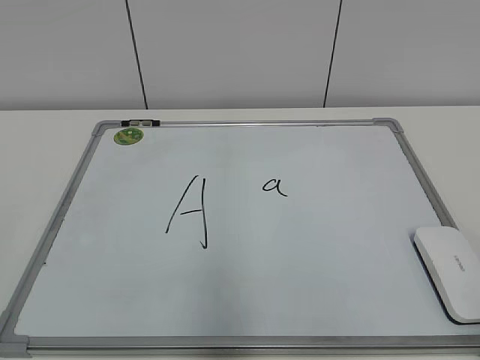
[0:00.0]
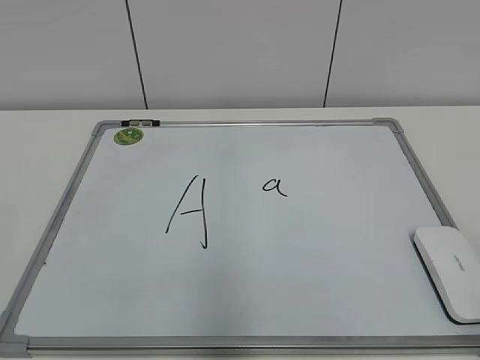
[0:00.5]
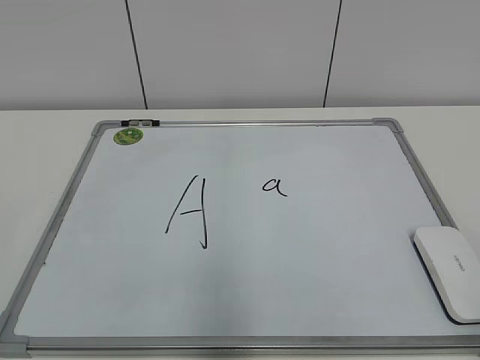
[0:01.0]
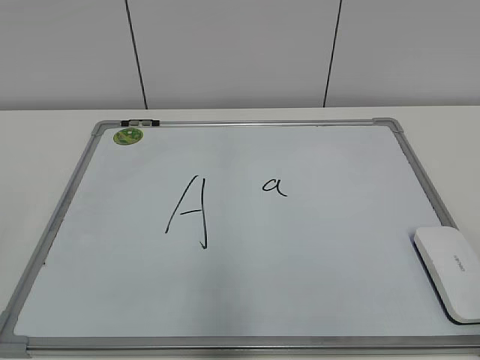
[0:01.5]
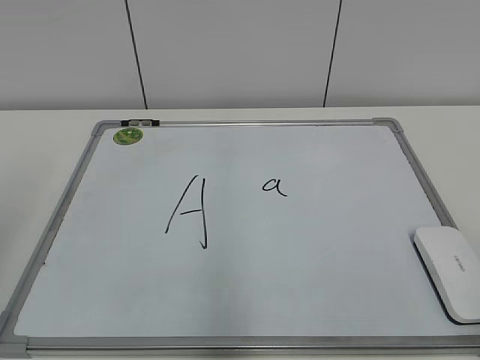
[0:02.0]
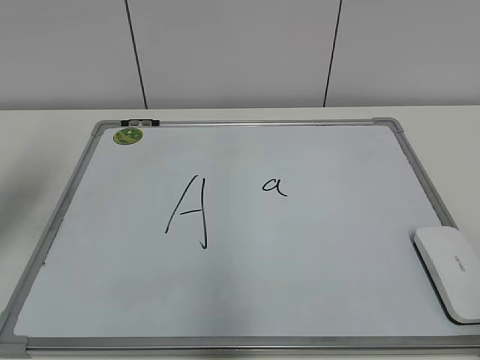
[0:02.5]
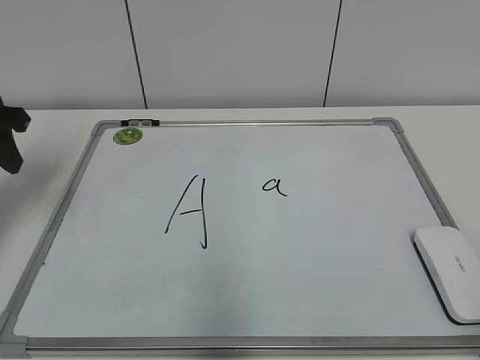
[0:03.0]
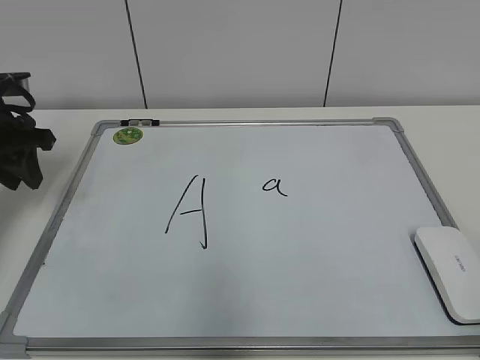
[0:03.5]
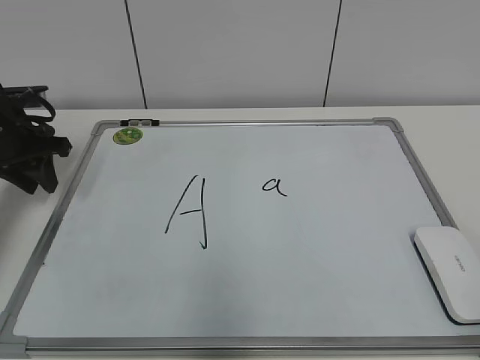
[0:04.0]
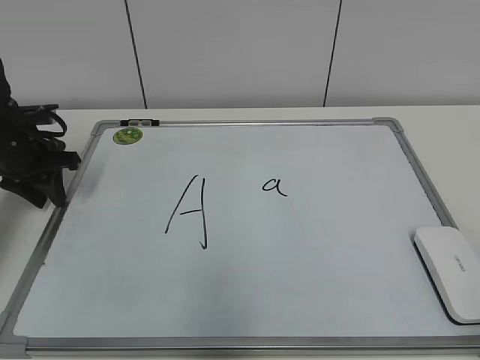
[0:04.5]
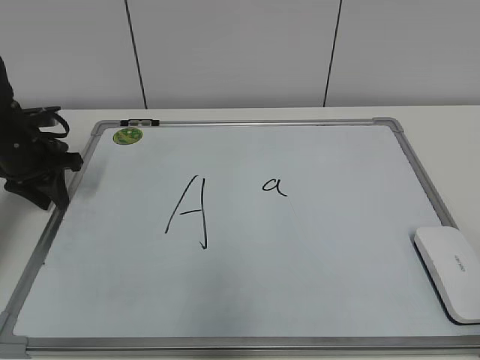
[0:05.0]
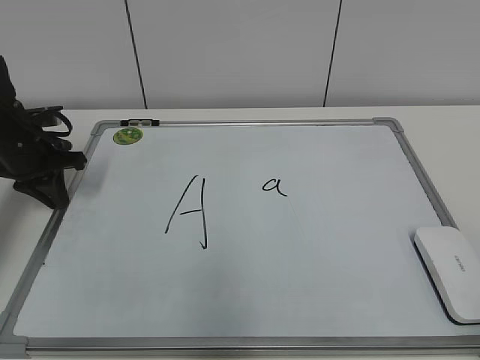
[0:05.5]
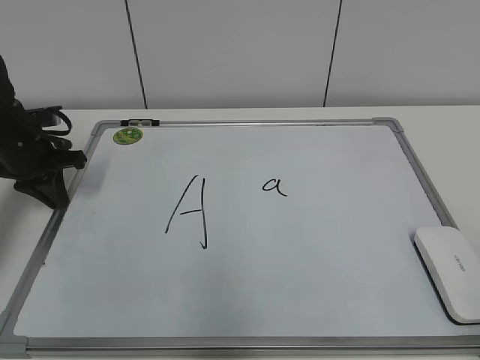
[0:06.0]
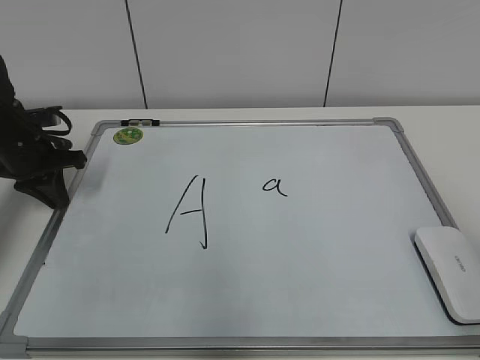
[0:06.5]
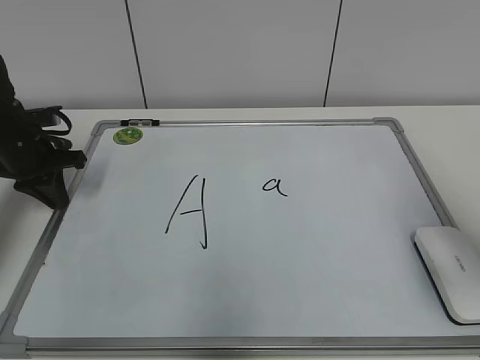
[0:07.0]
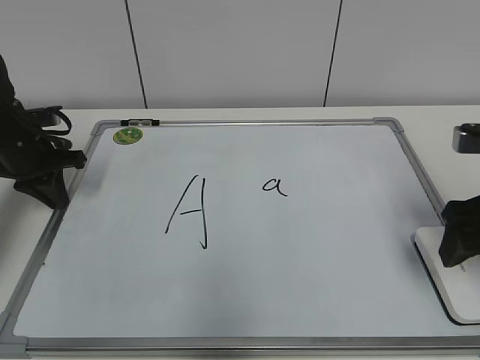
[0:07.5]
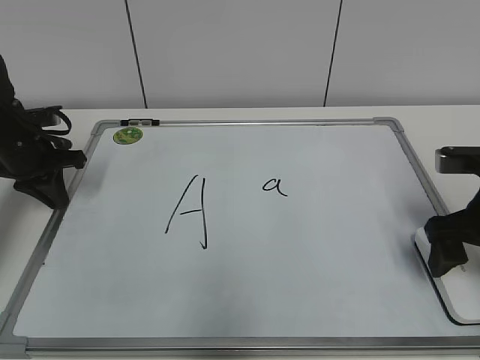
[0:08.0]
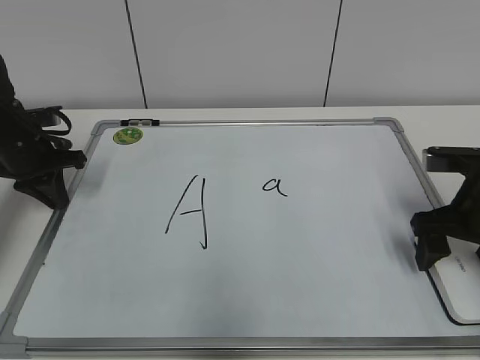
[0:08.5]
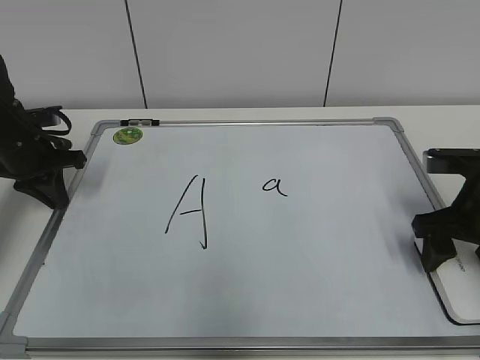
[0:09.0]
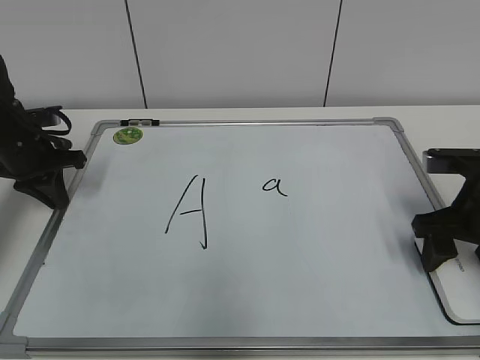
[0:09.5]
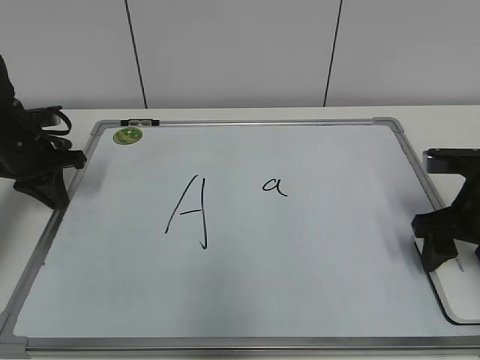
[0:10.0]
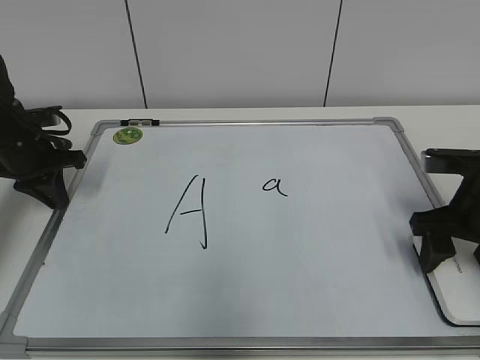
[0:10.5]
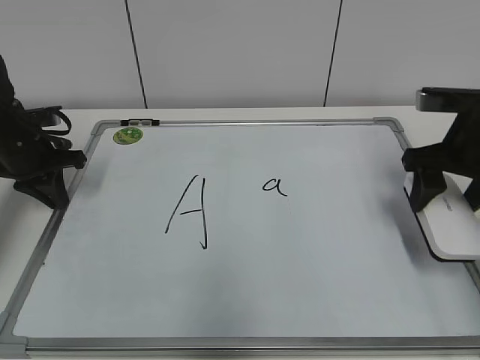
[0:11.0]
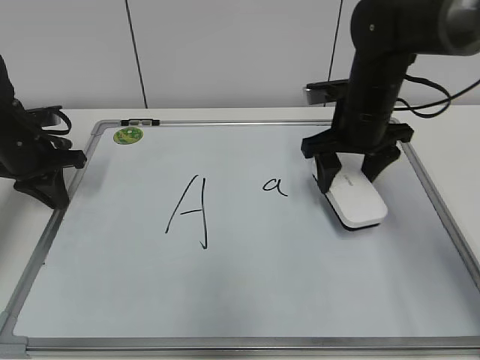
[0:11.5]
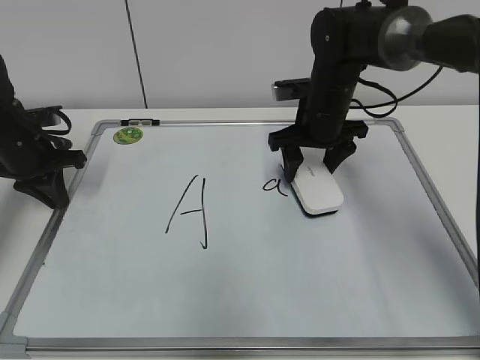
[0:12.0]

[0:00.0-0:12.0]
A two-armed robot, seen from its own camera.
Task of the whole recording: pick up the eraser on the blackboard and erase the letter "a".
Step, 0:00.0 to 0:05.5: Hold the drawing board steady with your left hand.
Step, 0:06.0 to 0:10.0: Grab the eraser with your right hand.
0:02.0 to 0:04.0: The left gripper travels forward and downward by roughly 30 cm.
0:04.0 to 0:06.0: The left gripper closes up.
0:06.0 to 0:08.0: The right gripper travels forward by roughly 30 cm, and opens.
0:08.0 to 0:10.0: The right gripper closes its fingers.
0:10.0 to 0:12.0: The right gripper moves forward and to the left, some 20 cm.

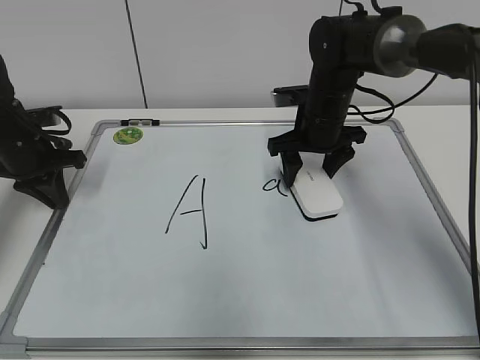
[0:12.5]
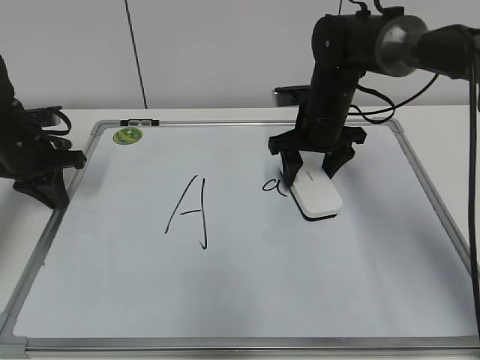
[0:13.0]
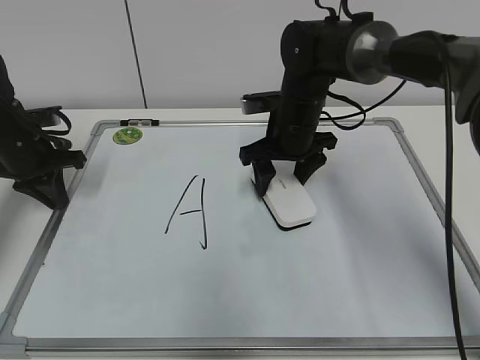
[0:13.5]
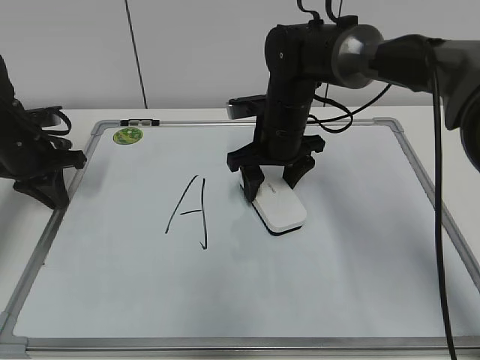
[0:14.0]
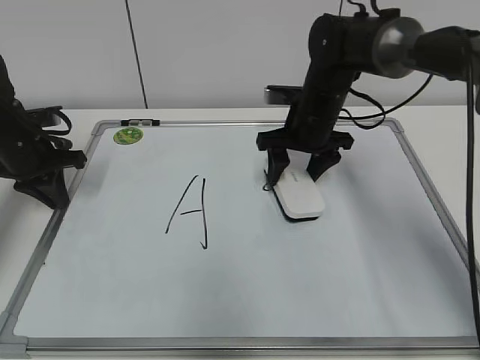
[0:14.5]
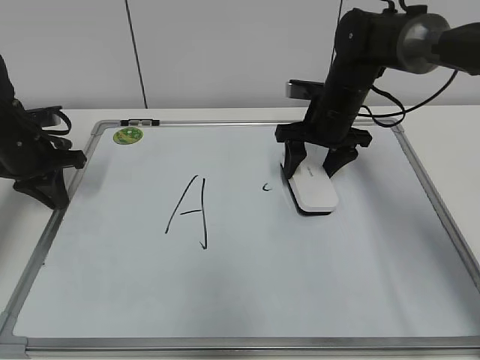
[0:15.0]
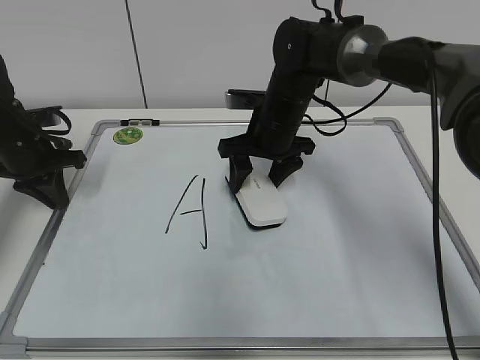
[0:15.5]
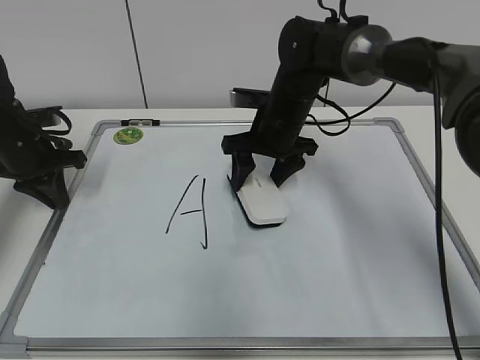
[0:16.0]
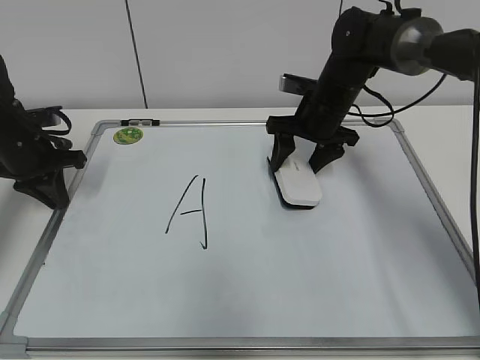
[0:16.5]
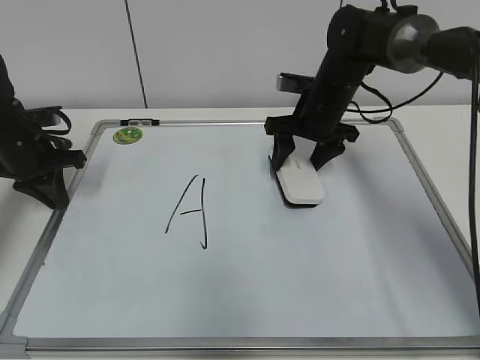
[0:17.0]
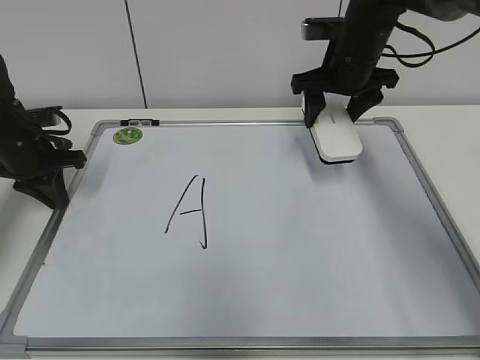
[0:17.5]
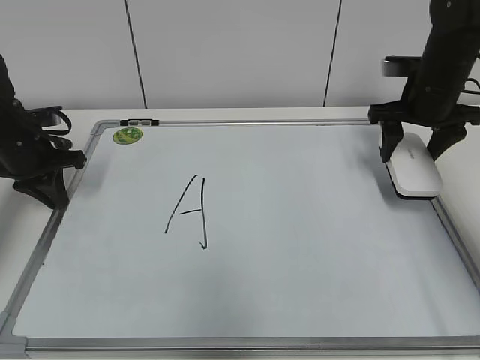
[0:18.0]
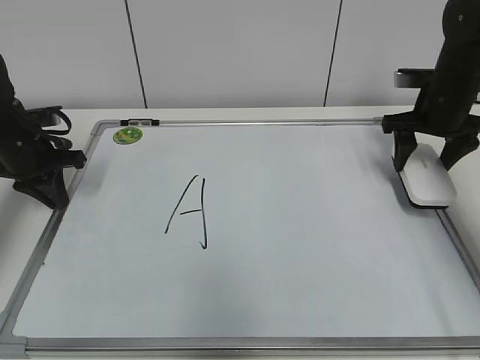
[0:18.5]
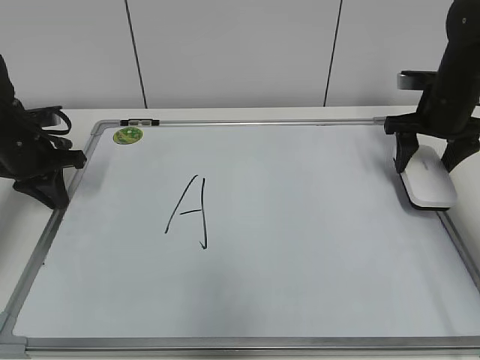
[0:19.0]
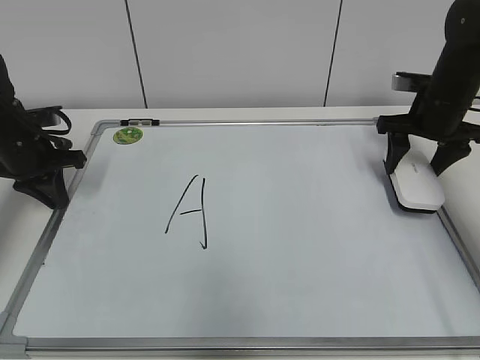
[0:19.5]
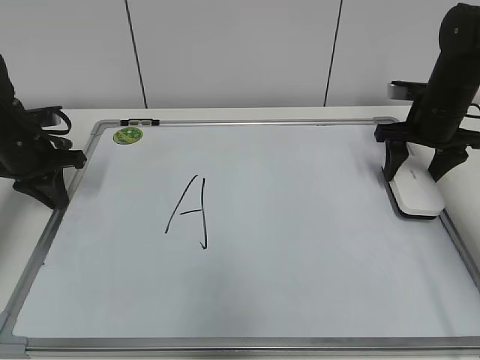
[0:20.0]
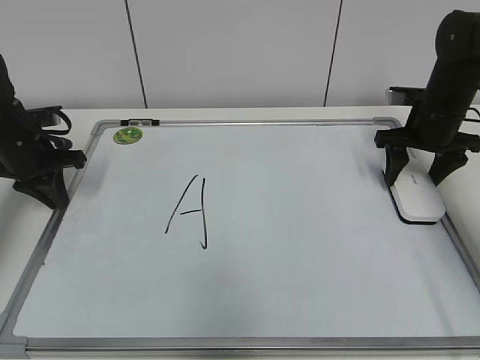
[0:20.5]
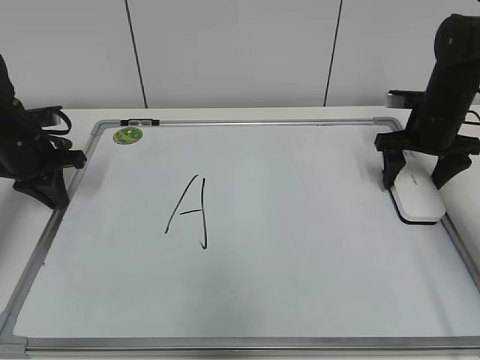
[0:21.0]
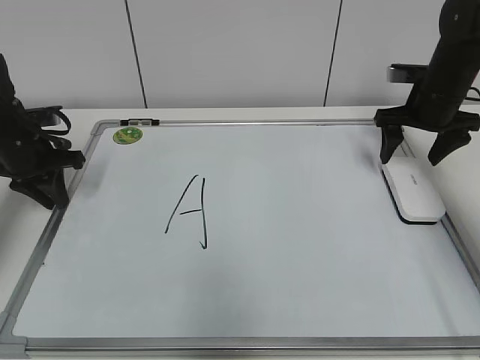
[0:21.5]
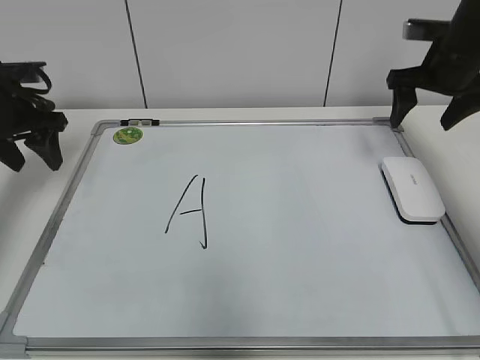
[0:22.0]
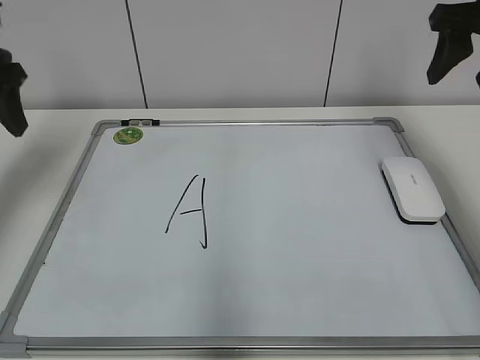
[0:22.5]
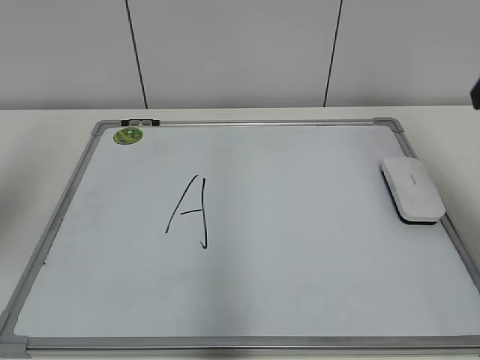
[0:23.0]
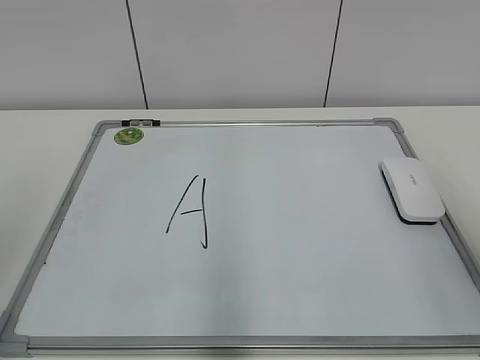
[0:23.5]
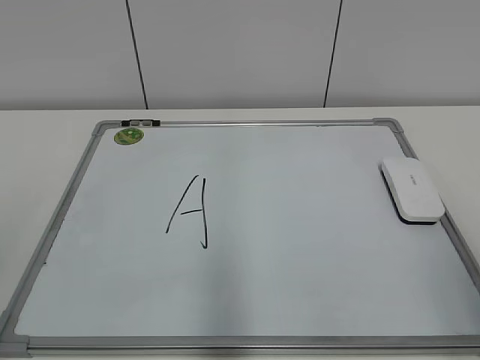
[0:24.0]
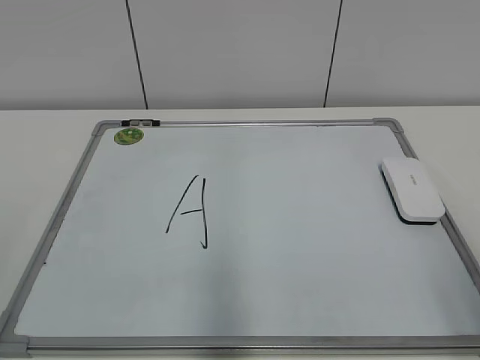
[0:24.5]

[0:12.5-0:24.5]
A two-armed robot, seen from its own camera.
Task of the whole recording: pick up the eraser on the blackboard and erase the letter "a".
Step, 0:12.5 to 0:16.0: Erase the letter a with your right hand.
Step, 0:16.5 to 0:20.5: Put down the eraser with your right hand.
0:14.5 to 0:16.5: The right gripper moves approximately 5 cm to the left and comes back.
0:16.5 to 0:18.5: The right gripper shifts some 15 cm to the right.
0:18.5 to 0:20.5: The grippers stay close to where they were, moving slightly.
0:20.5 to 0:22.5: The left gripper travels upward by about 15 cm, and opens its fingers, while the right gripper moves upward and backward, roughly 20 cm, and opens and closes again.
0:22.5 to 0:24.5: The two grippers go some 30 cm backward.

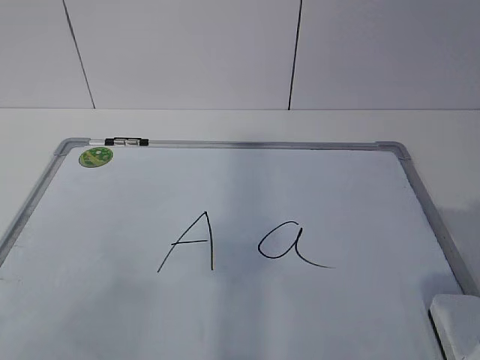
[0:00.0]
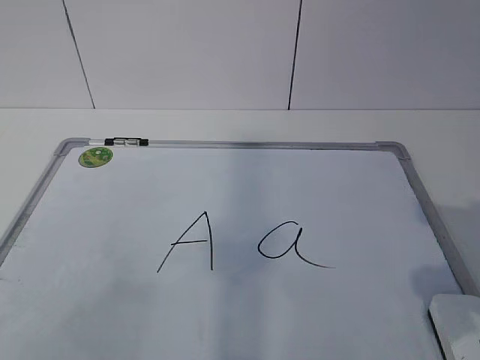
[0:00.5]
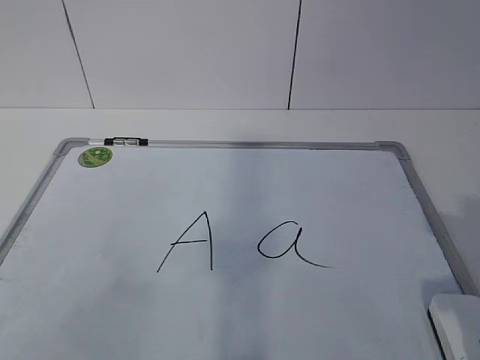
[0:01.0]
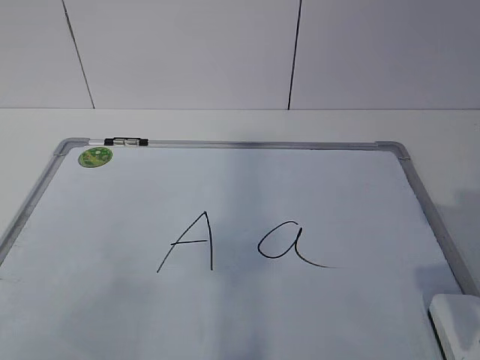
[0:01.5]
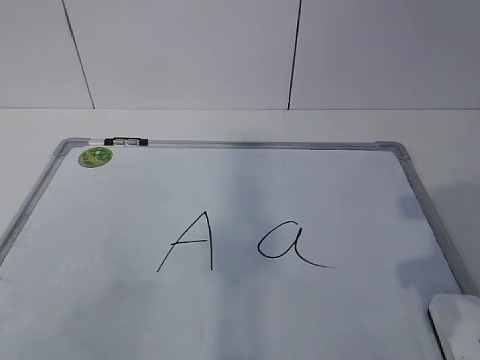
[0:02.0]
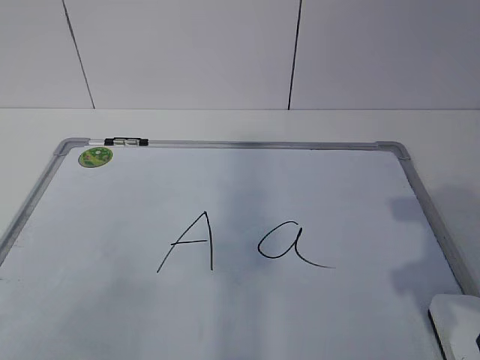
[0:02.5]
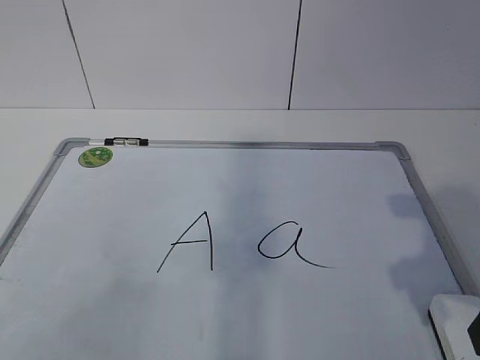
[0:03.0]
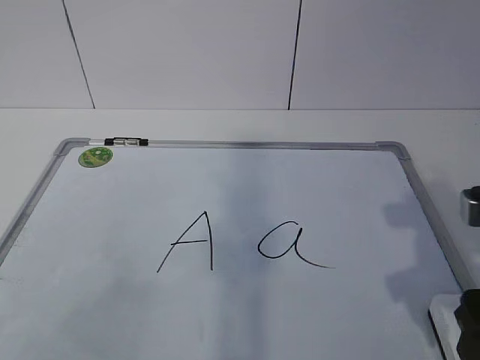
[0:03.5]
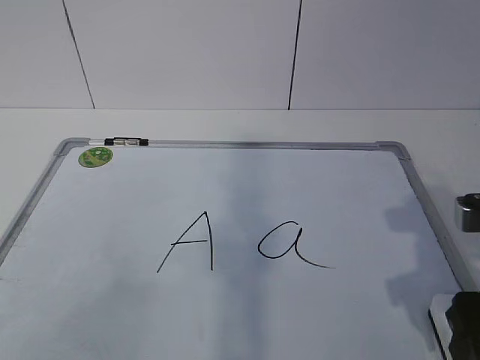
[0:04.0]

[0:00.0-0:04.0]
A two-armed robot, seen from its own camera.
Task of the whole recording: pick up the eraser on the blackboard and erase the letter "a".
0:00.0 to 0:02.0: The right gripper closes its fingers.
0:02.0 to 0:04.0: The right gripper opens.
